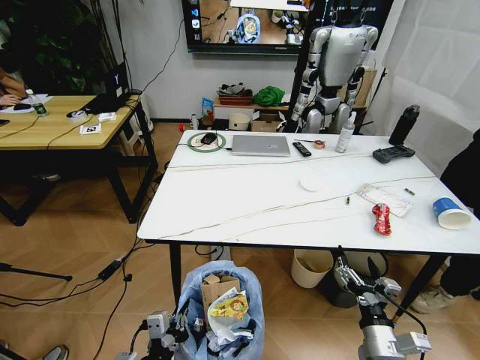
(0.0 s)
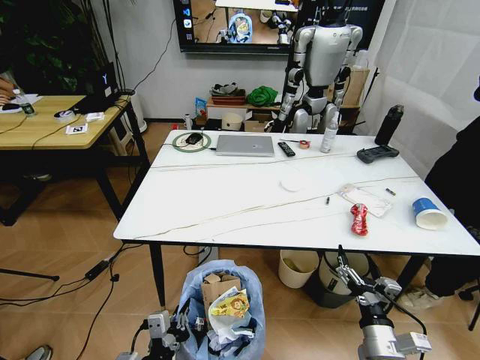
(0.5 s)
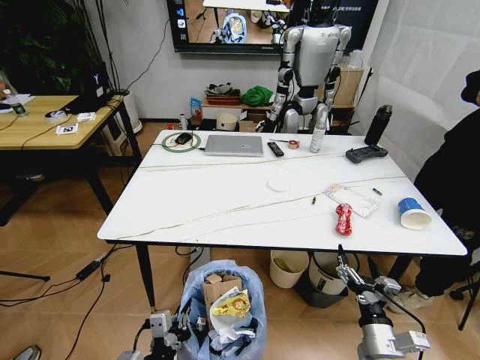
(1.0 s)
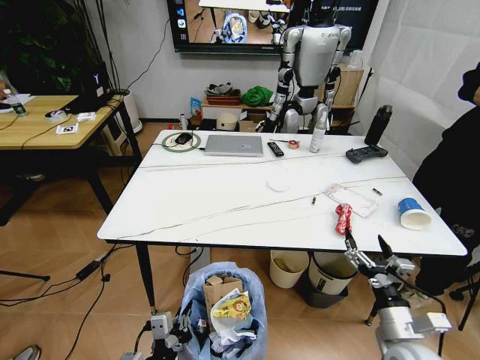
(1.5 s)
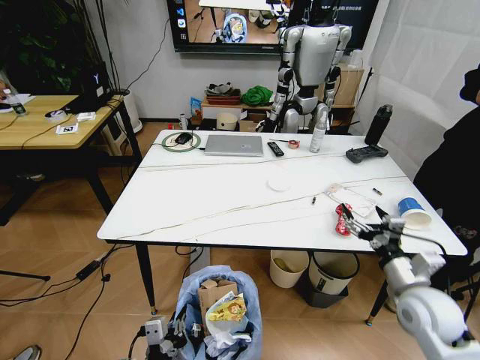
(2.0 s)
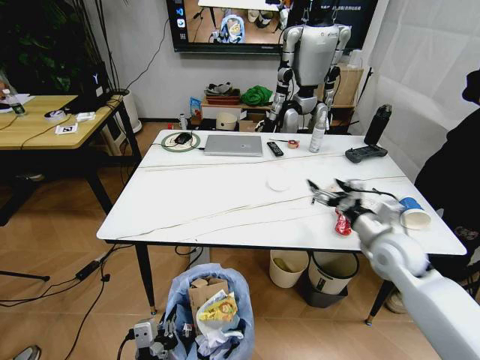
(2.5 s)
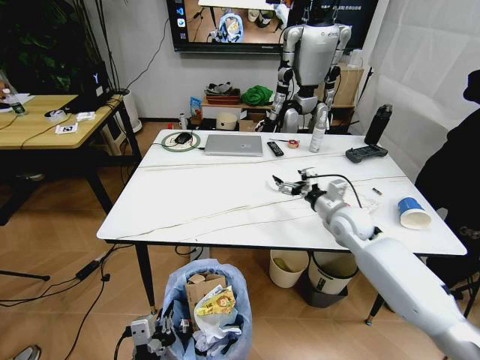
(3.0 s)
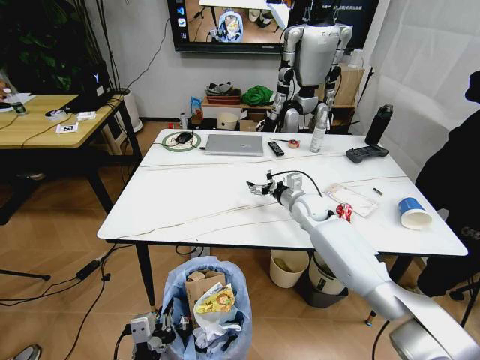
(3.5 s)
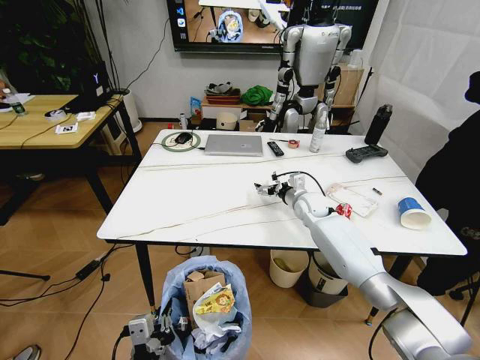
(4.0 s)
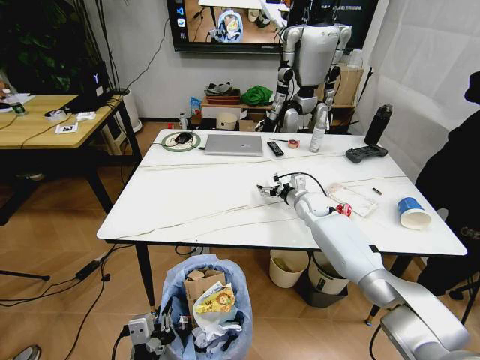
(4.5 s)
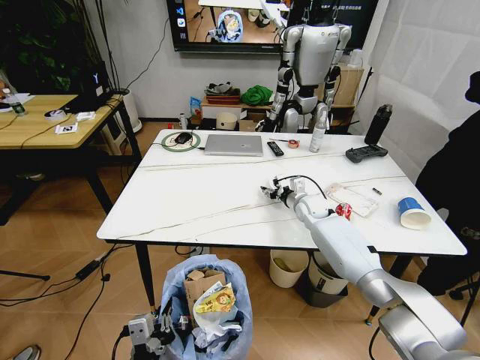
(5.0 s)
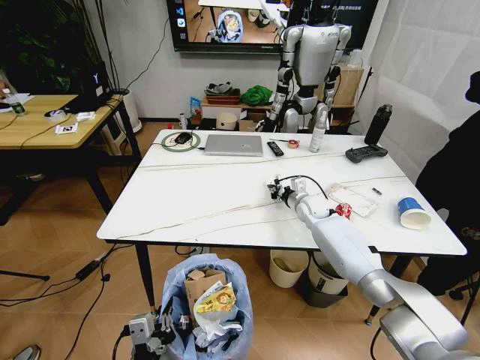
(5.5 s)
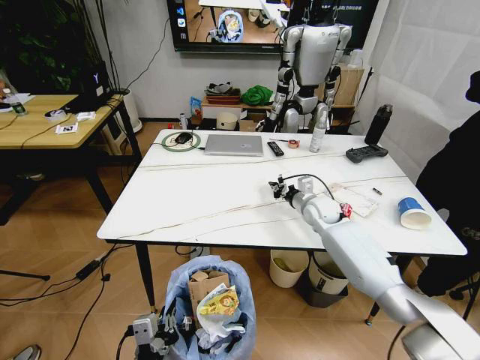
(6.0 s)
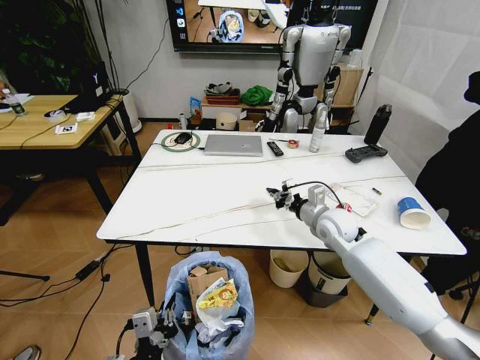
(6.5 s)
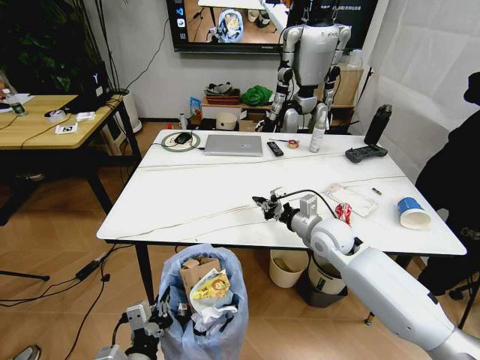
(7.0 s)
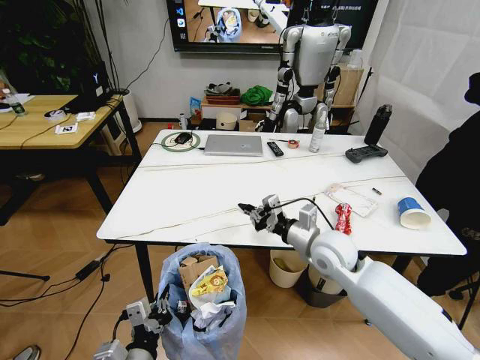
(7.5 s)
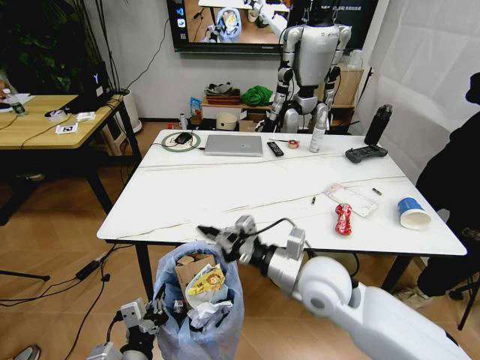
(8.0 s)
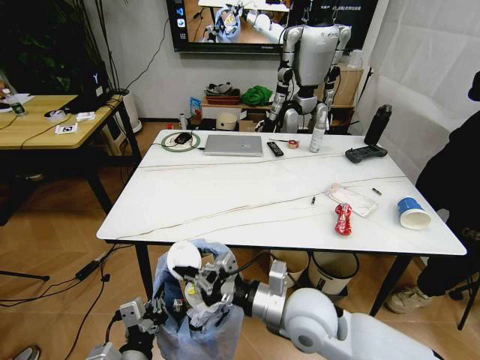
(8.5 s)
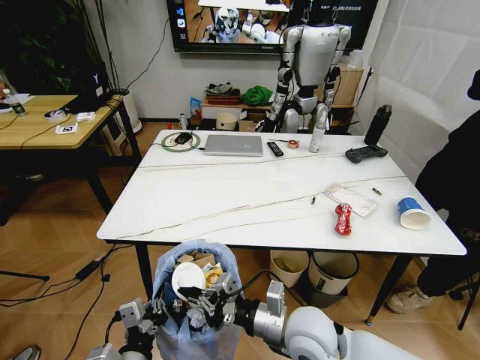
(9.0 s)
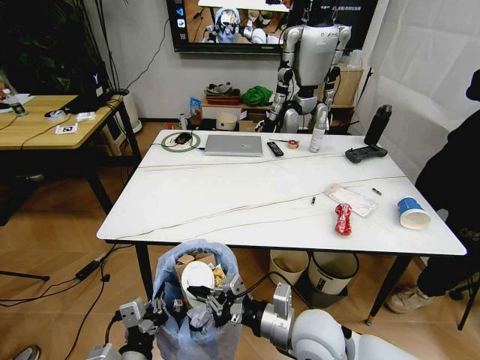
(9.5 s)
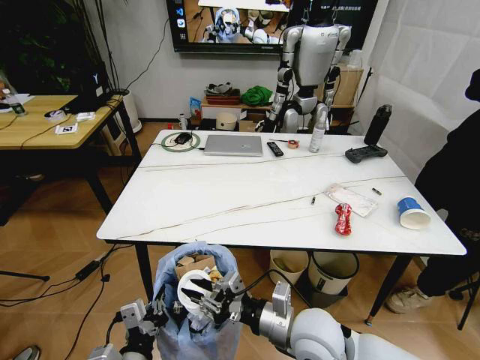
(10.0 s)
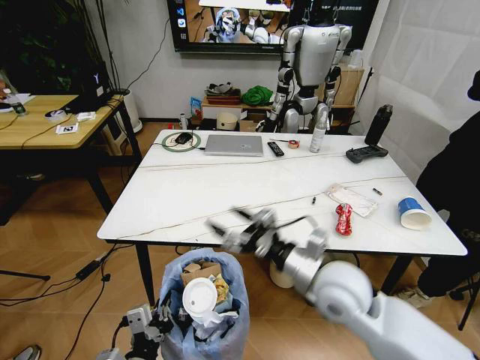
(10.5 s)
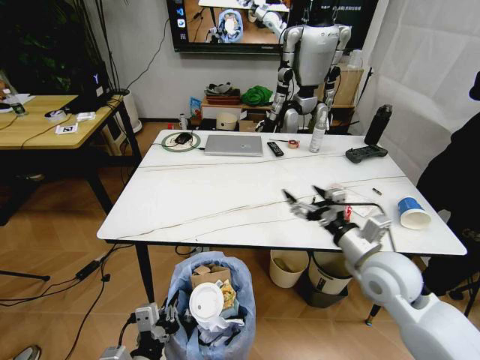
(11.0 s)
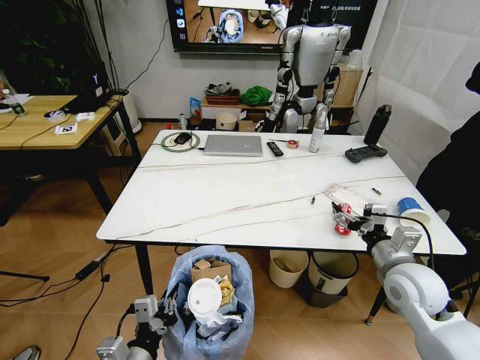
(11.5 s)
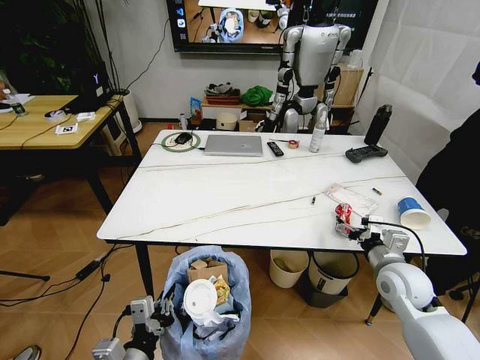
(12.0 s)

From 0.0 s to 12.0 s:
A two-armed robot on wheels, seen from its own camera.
Task of the whole recording: Pick up the trash bin and place the trash from the table into it.
From 0.0 s to 2.0 s: The right gripper goes approximately 15 cm upward, forward and to the right.
From 2.0 s to 4.0 s: The right gripper is displaced forward and to the left by approximately 35 cm.
From 4.0 s to 6.0 s: The right gripper closes up.
From 6.0 s to 8.0 s: The right gripper moves backward, some 25 cm.
From 8.0 s to 10.0 s: The right gripper moves backward and downward, some 10 cm.
From 10.0 s to 12.0 s: The right gripper shifts roughly 25 cm to the right and forward, and opens up.

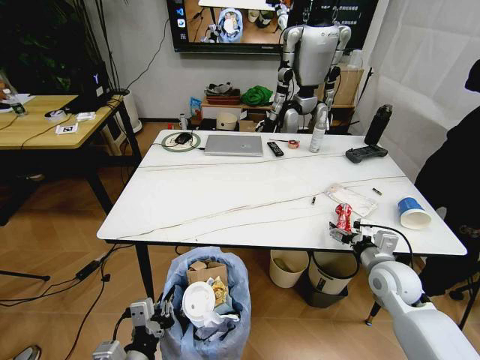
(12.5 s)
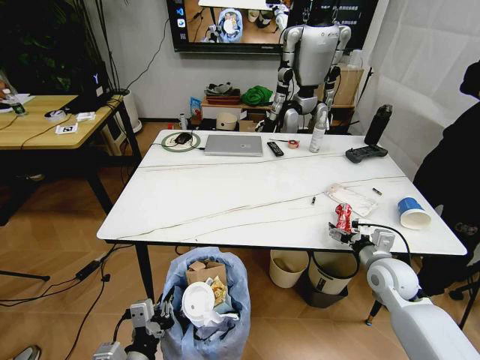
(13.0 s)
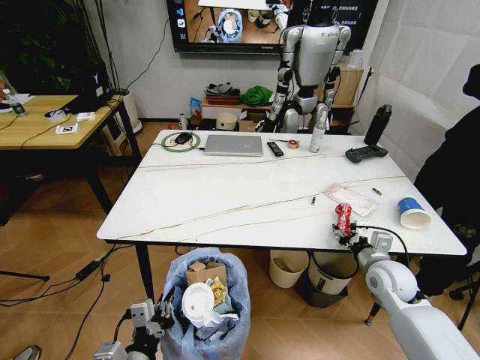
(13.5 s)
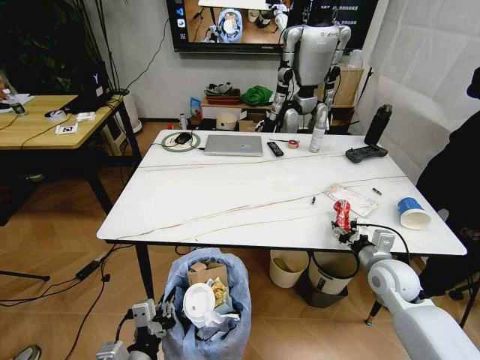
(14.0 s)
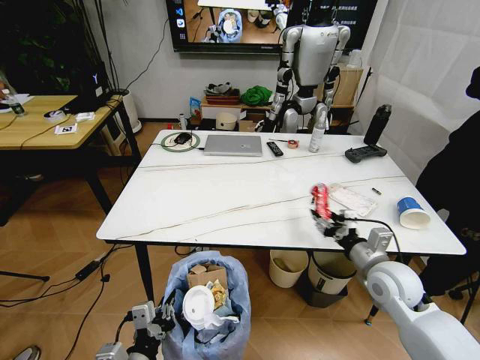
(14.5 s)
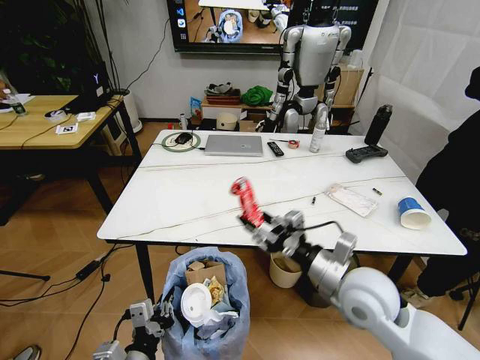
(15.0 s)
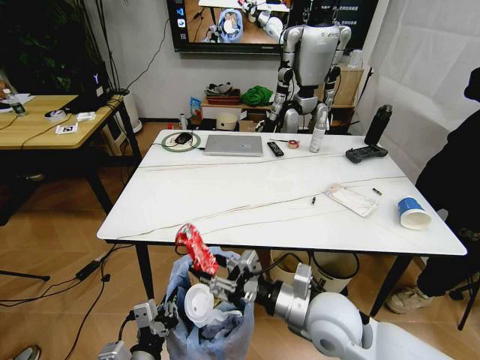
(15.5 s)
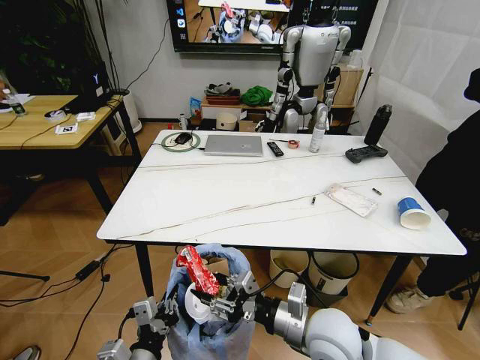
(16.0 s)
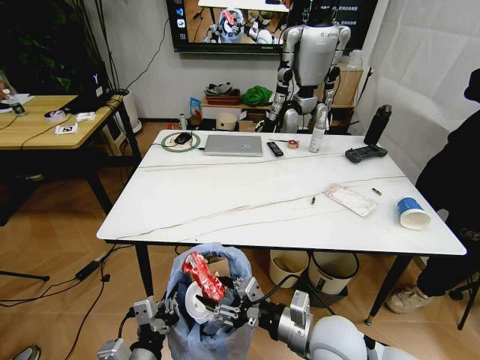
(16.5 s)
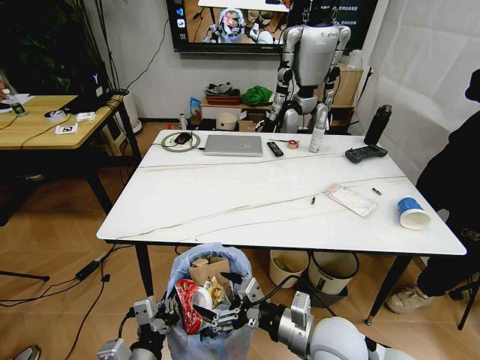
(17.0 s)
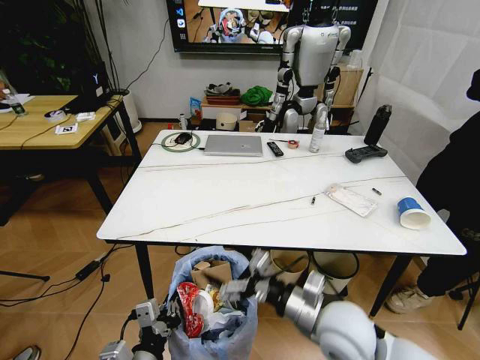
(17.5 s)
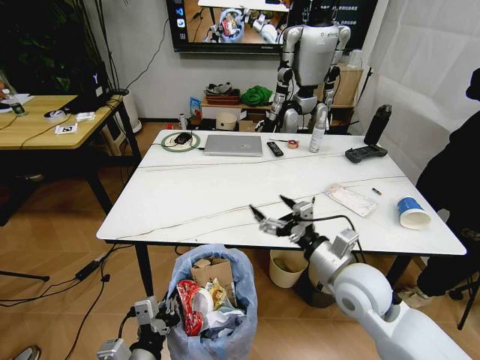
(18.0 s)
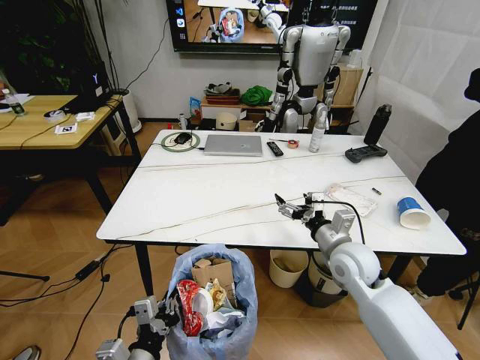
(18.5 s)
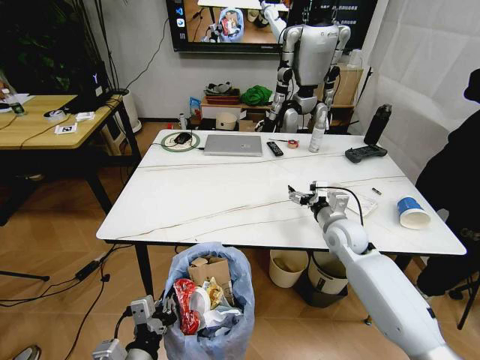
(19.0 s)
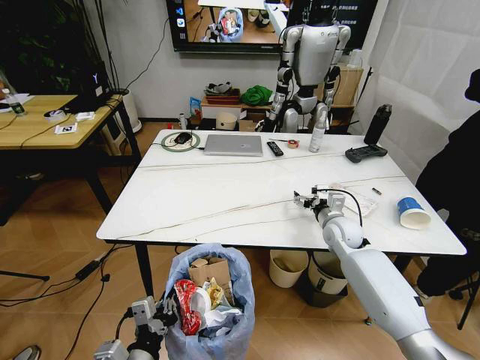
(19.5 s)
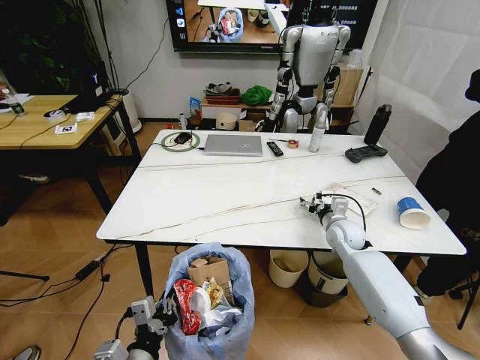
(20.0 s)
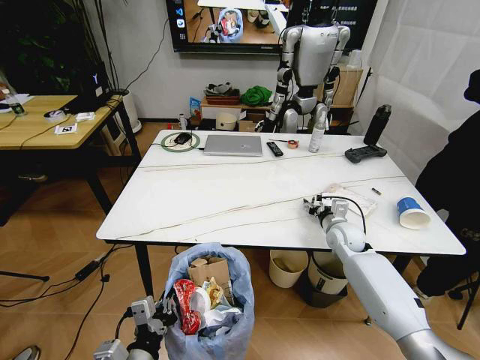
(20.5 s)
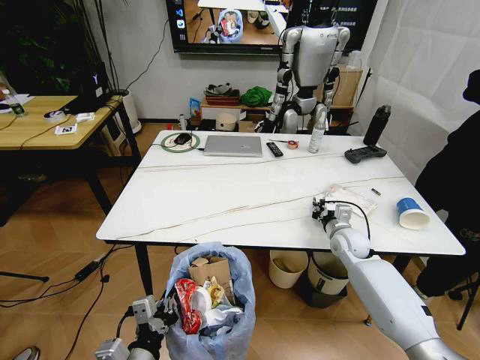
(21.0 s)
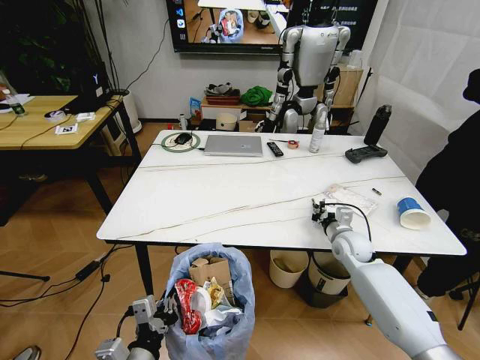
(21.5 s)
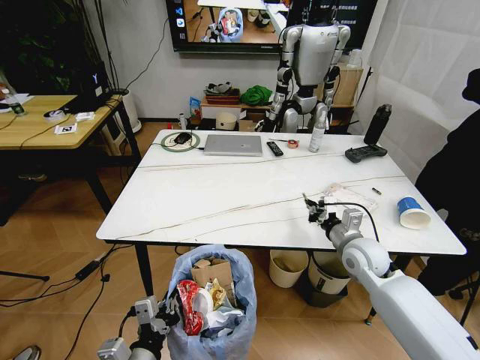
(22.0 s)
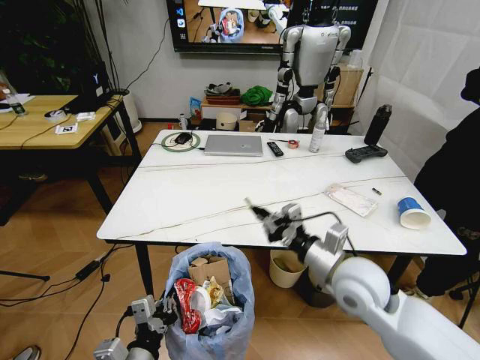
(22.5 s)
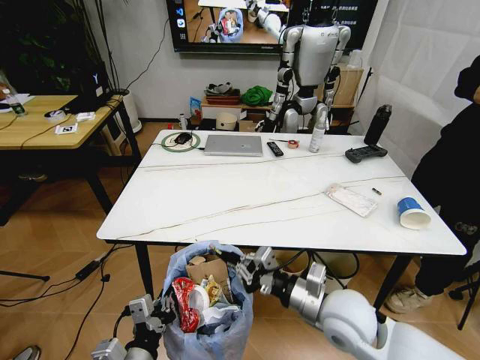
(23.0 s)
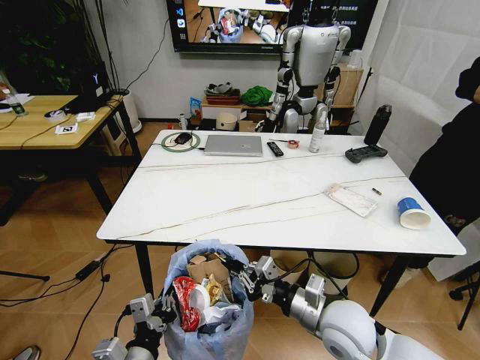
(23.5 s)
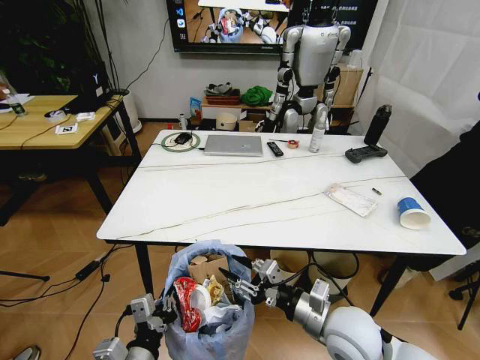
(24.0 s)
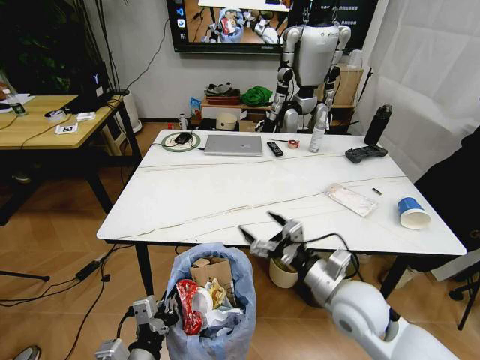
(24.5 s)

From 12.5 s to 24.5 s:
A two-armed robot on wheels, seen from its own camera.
Task of the whole recording: Pick up the trash bin and place the trash from the table into it.
From 12.5 s to 14.5 s: The right gripper closes.
From 14.5 s to 16.5 s: The right gripper goes some 20 cm to the left and backward.
From 16.5 s to 18.5 s: The right gripper goes some 15 cm forward and to the right, and opens its fingers.
From 18.5 s to 20.5 s: The right gripper moves forward, downward and to the right, about 15 cm, and closes up.
From 20.5 s to 22.5 s: The right gripper heads backward, upward and to the left, covering approximately 25 cm, and closes its fingers.
From 22.5 s to 24.5 s: The right gripper opens.

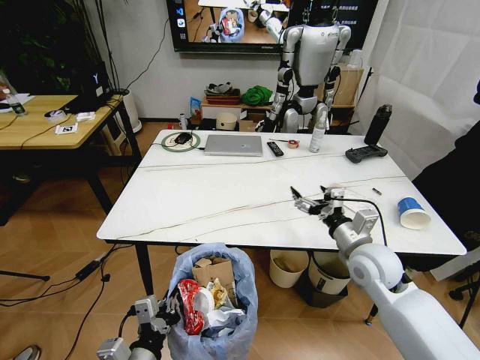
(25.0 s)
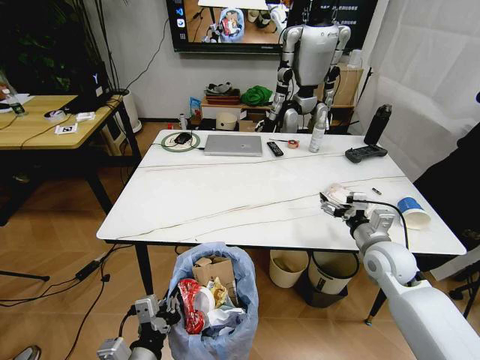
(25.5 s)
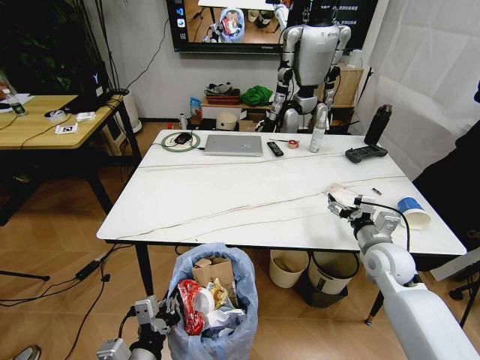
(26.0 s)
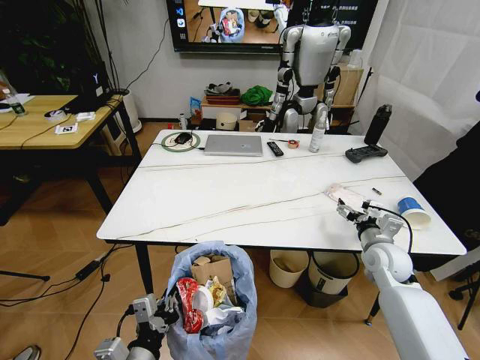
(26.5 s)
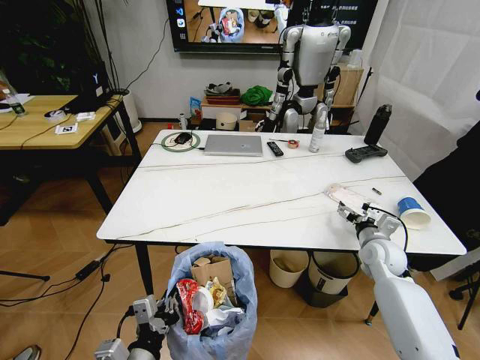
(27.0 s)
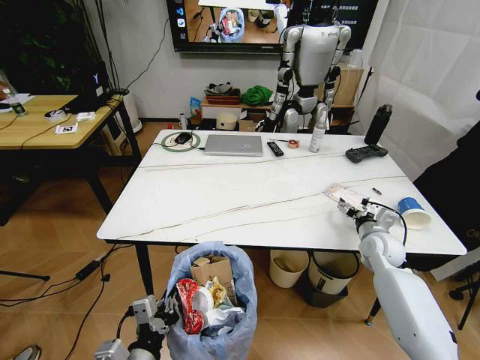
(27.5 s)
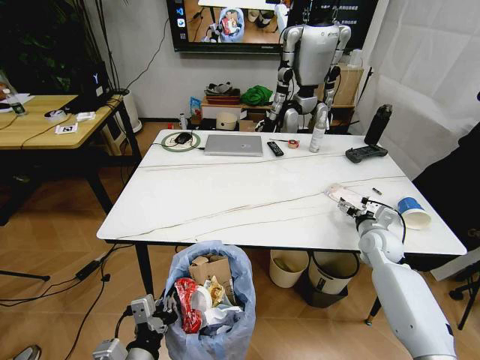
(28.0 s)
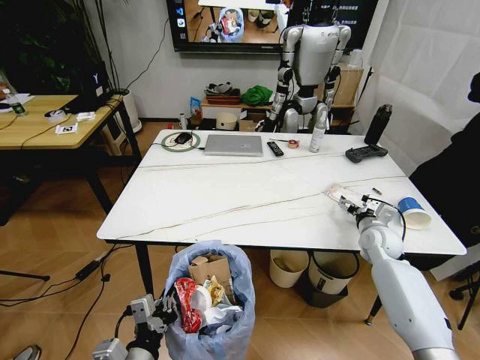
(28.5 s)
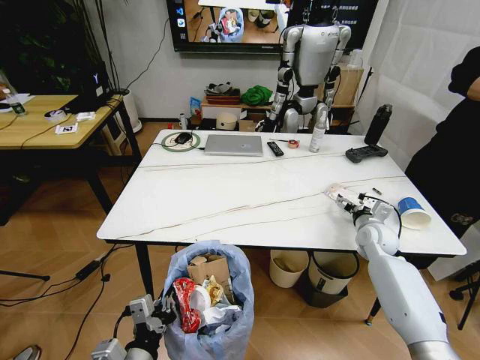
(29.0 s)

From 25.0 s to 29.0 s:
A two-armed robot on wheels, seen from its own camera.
Task of the whole recording: Pick up the trash bin and place the trash from the table into it.
From 25.0 s to 27.0 s: The right gripper is displaced to the right, downward and forward by some 15 cm.
From 27.0 s to 29.0 s: The right gripper heads forward, covering some 5 cm.
